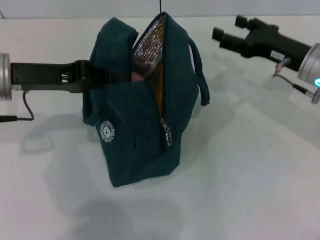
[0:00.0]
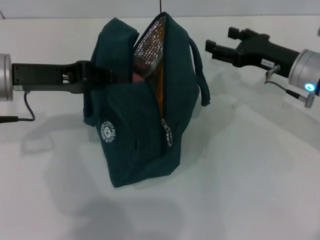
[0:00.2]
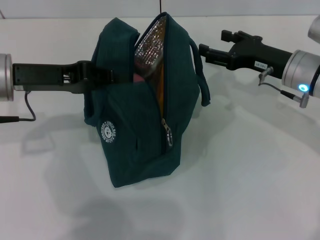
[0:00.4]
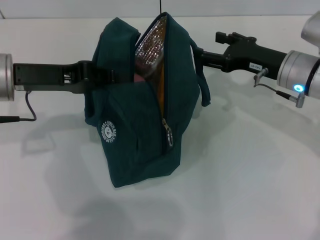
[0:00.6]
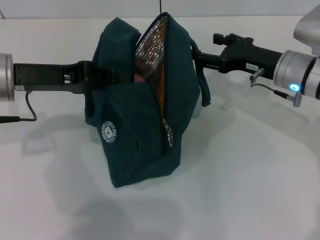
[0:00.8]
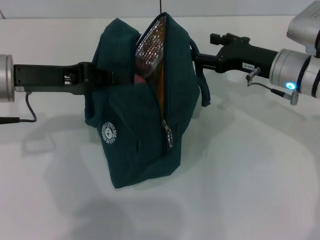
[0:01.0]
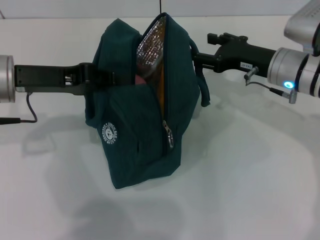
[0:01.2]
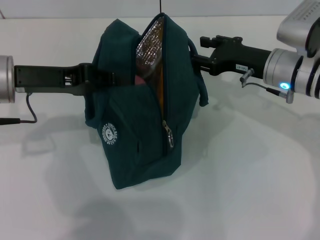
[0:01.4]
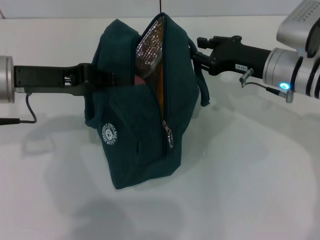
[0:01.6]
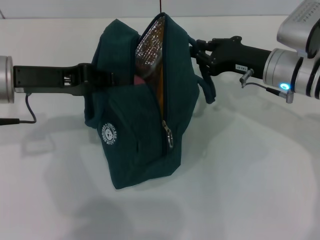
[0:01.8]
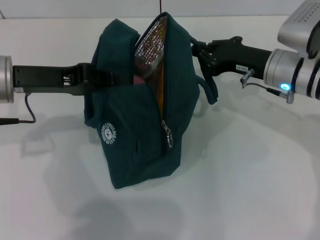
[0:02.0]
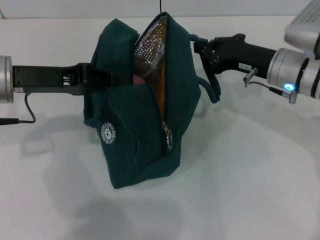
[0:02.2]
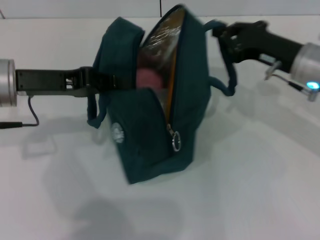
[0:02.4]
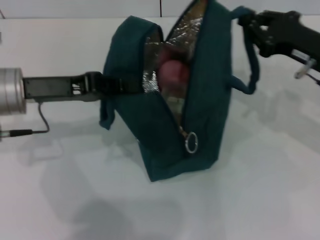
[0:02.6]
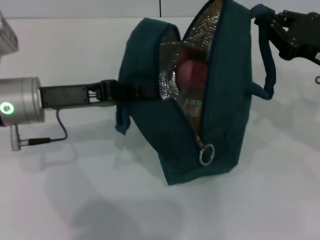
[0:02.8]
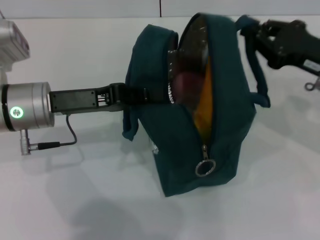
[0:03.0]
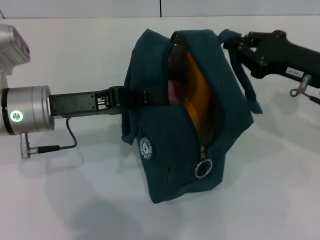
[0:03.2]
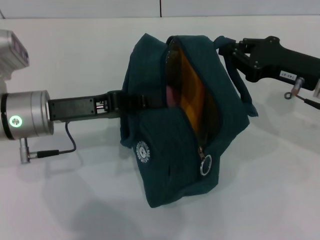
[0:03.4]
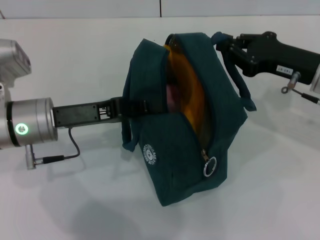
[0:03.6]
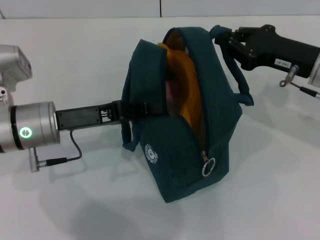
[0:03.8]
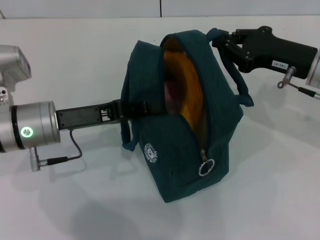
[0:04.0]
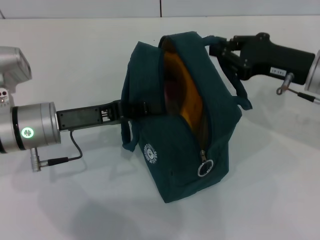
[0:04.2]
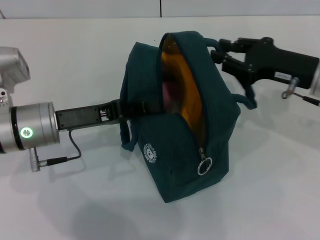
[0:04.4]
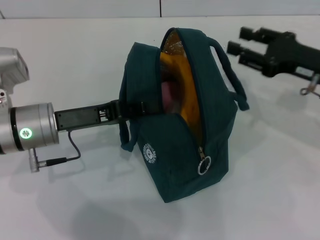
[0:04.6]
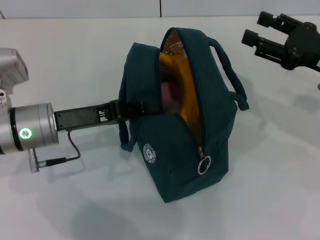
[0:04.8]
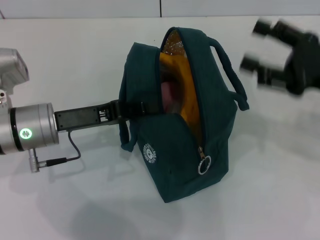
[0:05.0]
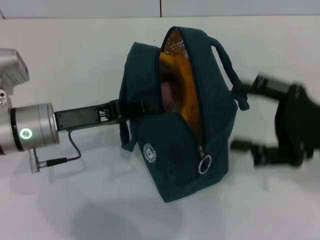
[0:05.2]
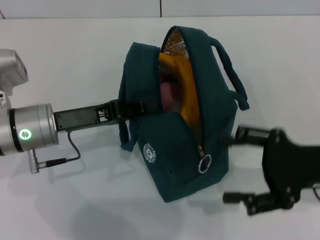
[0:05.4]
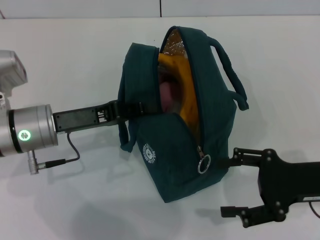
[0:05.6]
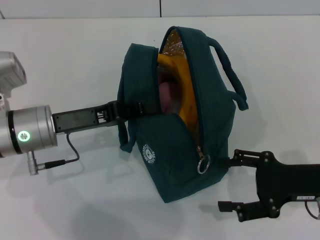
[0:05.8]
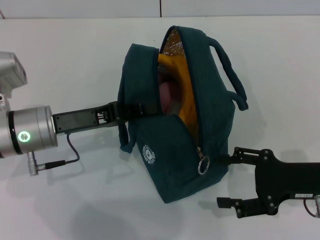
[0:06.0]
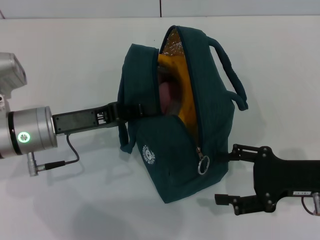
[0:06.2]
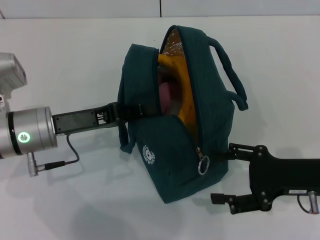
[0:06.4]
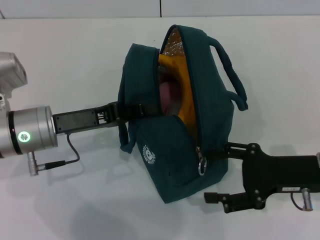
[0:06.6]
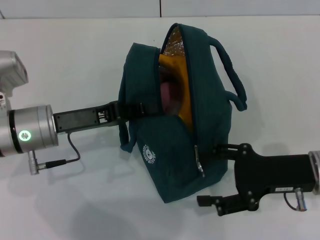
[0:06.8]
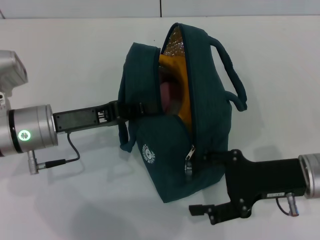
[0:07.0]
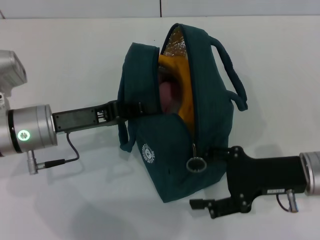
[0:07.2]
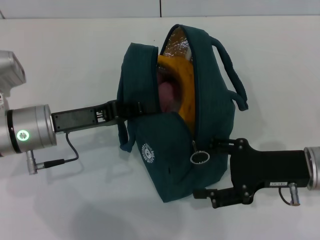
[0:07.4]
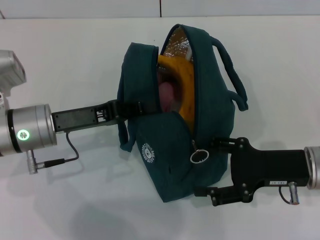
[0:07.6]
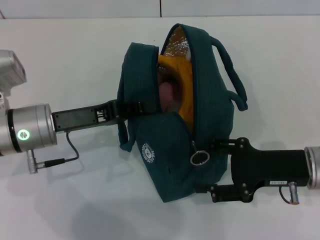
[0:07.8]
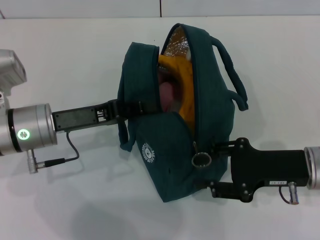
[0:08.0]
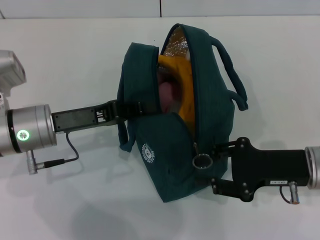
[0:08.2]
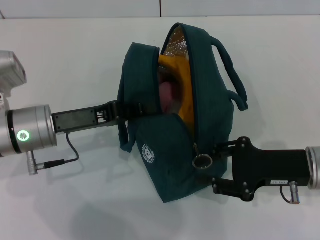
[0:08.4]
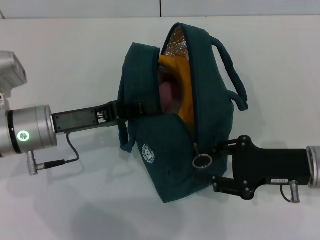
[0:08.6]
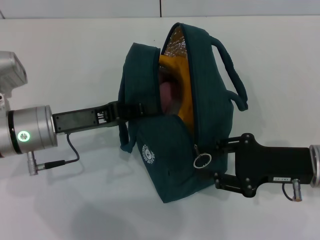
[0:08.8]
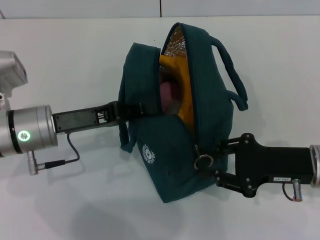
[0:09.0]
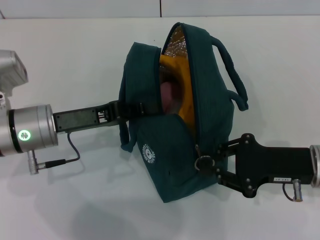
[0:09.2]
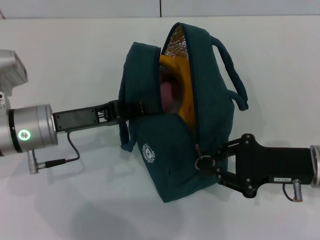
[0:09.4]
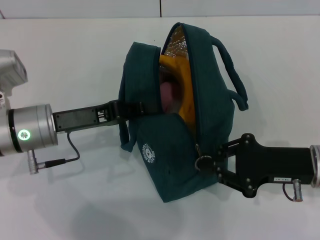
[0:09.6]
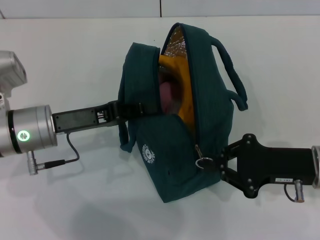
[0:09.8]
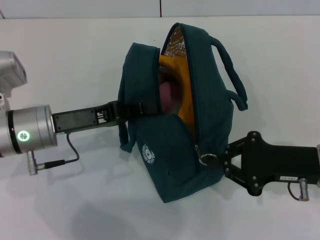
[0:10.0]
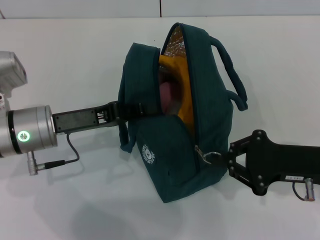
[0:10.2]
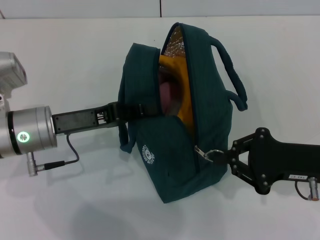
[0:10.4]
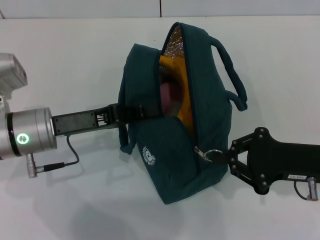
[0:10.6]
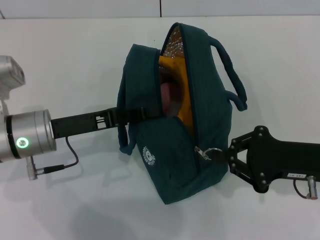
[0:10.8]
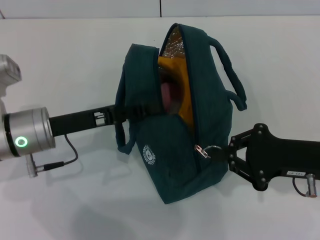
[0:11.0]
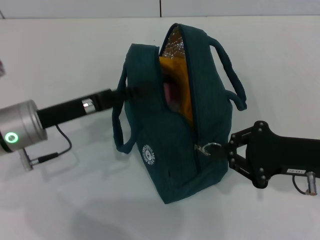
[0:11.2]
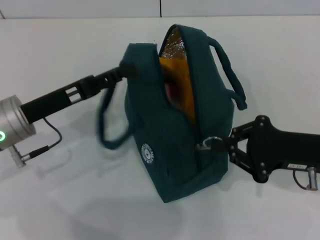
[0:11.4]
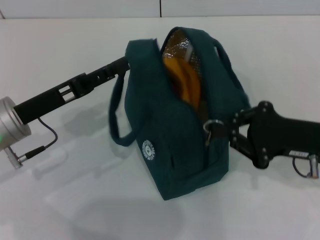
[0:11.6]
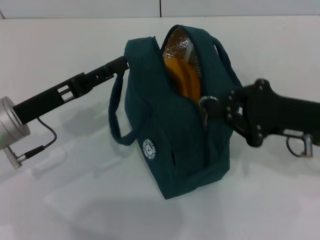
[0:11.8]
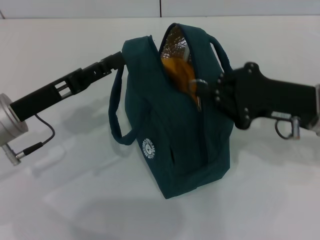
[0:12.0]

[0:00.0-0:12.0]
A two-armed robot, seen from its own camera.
Step, 0:00.0 to 0:04.4: Hold the lunch bag with your right hand.
0:00.0 to 0:01.6: The right gripper closes.
0:01.6 to 0:03.0: The right gripper travels to the right and backward by about 10 cm, and closes up. The left gripper shifts by approximately 5 cm.
0:04.4 to 0:06.0: The right gripper is displaced backward and downward by some 10 cm, and opens its fingers.
0:06.0 to 0:07.6: The grippers move only a little.
0:07.6 to 0:09.0: The right gripper closes up.
0:09.0 to 0:10.4: The right gripper closes its fingers.
0:10.4 to 0:12.0: The right gripper ends up roughly 5 cm from where it was. Meanwhile the left gripper opens up.

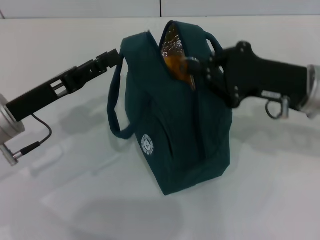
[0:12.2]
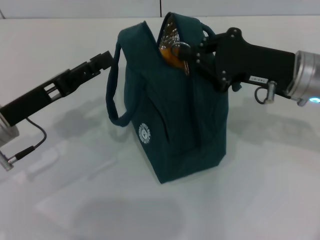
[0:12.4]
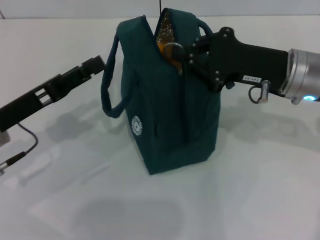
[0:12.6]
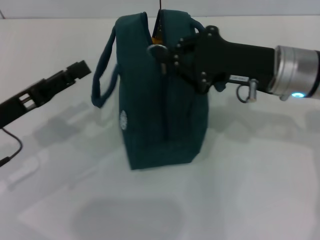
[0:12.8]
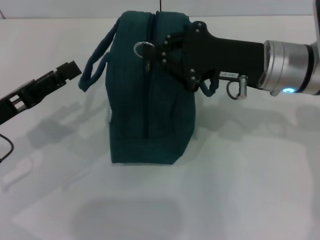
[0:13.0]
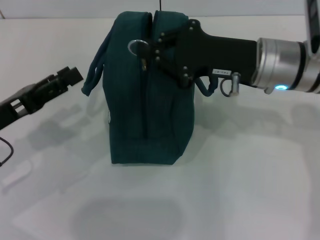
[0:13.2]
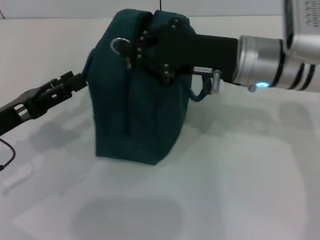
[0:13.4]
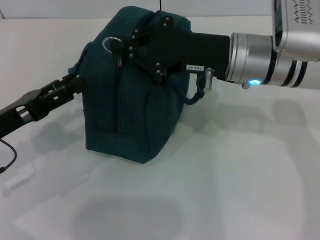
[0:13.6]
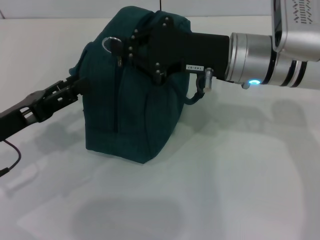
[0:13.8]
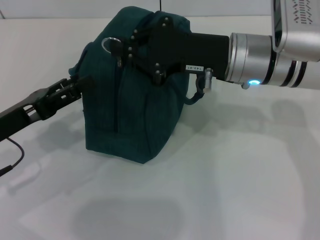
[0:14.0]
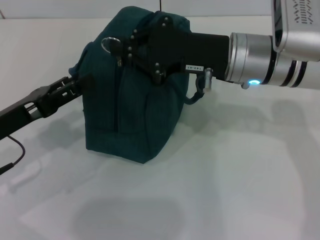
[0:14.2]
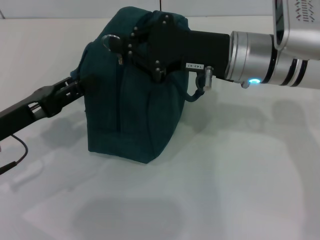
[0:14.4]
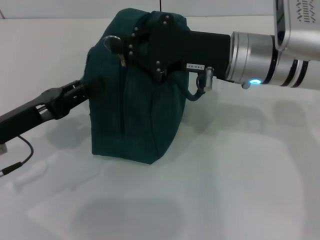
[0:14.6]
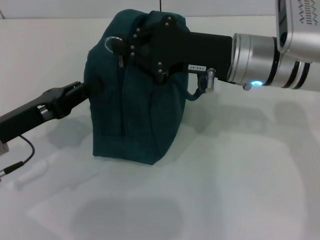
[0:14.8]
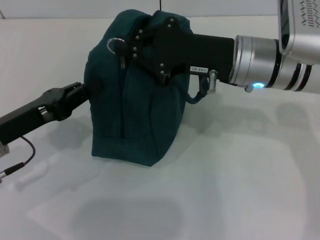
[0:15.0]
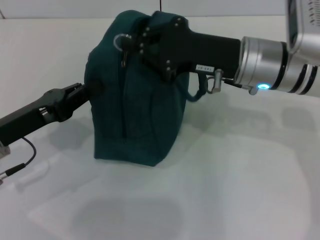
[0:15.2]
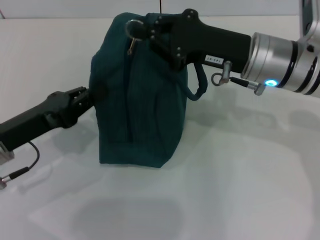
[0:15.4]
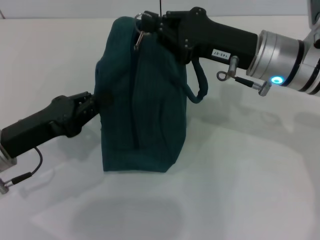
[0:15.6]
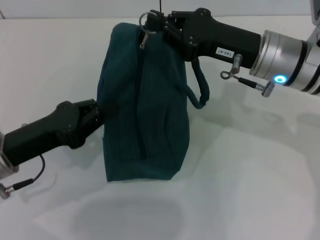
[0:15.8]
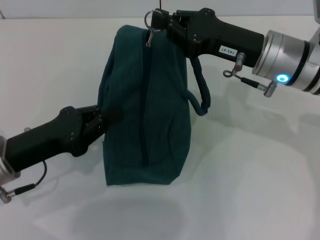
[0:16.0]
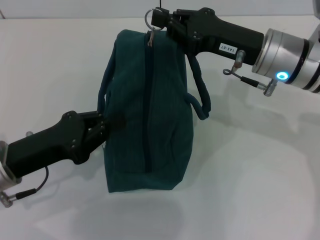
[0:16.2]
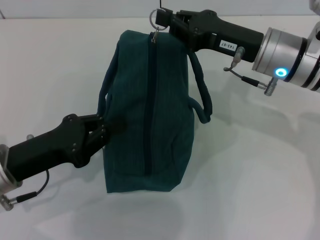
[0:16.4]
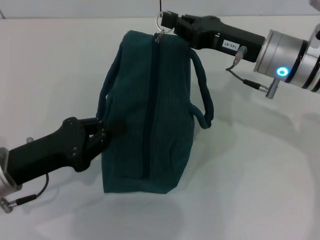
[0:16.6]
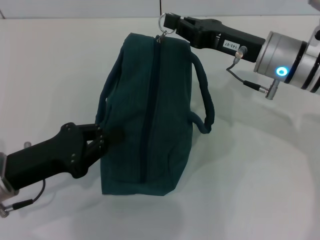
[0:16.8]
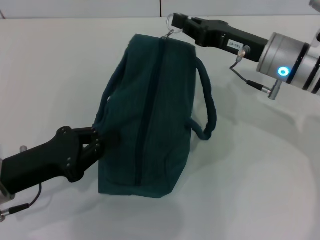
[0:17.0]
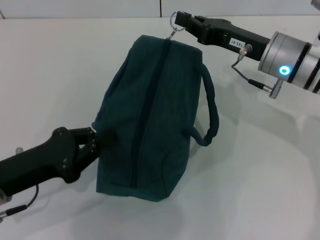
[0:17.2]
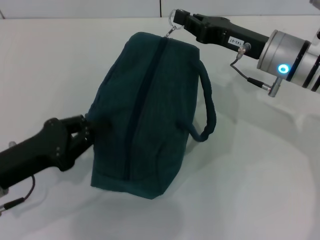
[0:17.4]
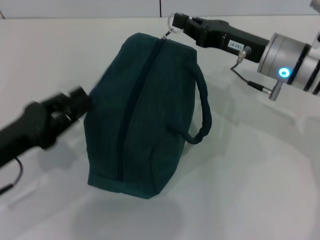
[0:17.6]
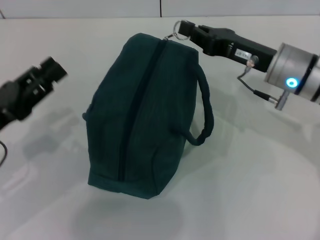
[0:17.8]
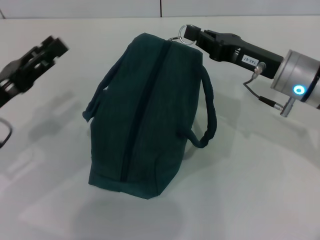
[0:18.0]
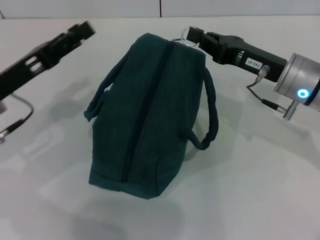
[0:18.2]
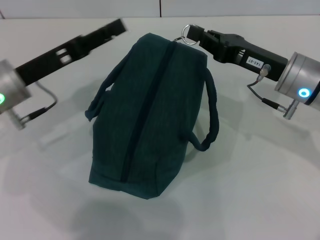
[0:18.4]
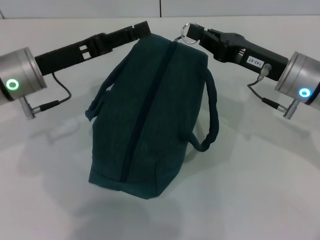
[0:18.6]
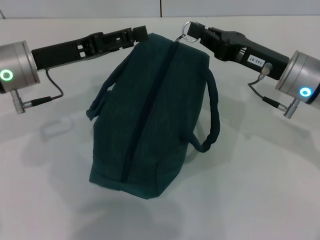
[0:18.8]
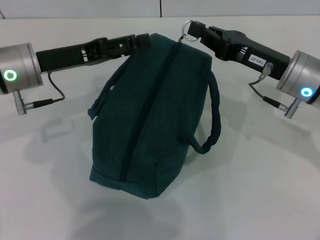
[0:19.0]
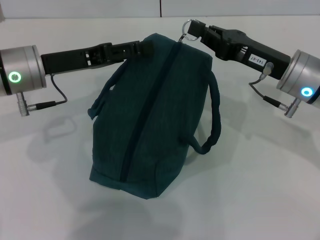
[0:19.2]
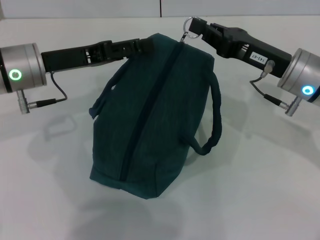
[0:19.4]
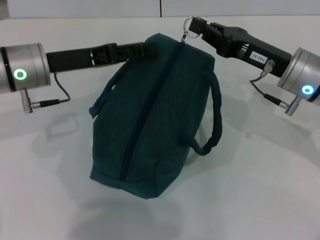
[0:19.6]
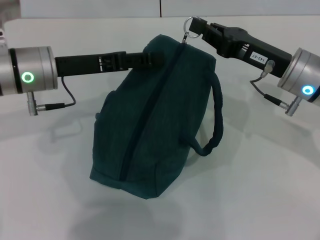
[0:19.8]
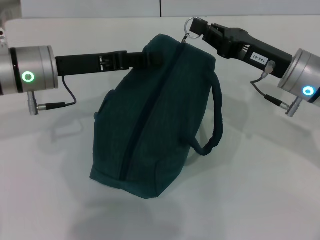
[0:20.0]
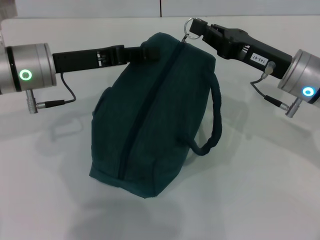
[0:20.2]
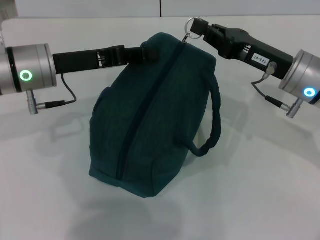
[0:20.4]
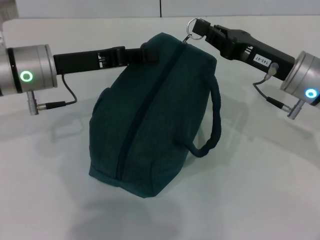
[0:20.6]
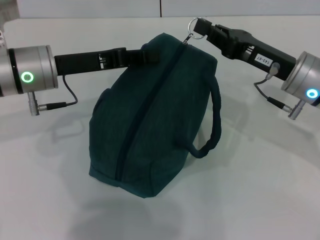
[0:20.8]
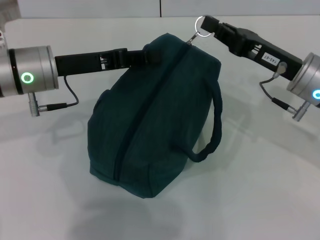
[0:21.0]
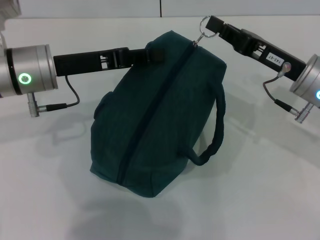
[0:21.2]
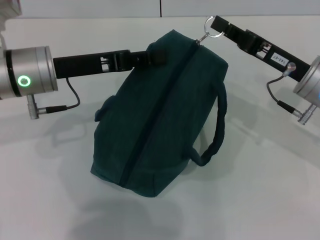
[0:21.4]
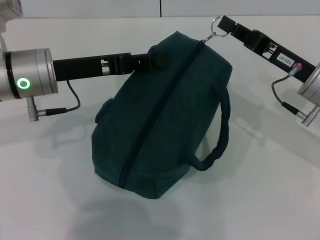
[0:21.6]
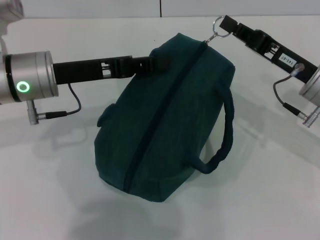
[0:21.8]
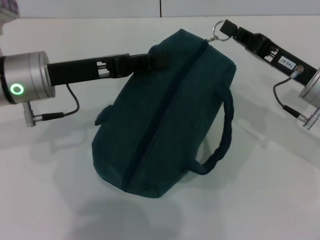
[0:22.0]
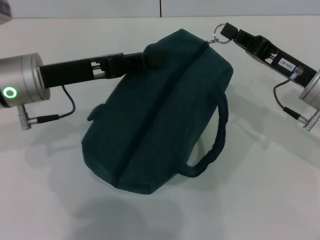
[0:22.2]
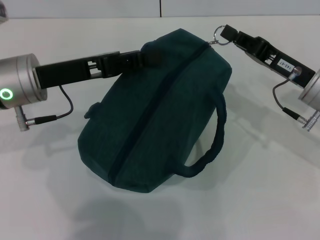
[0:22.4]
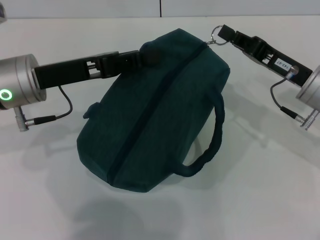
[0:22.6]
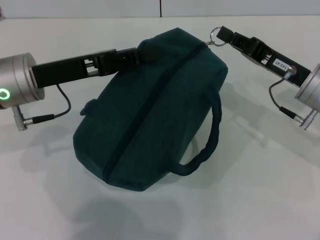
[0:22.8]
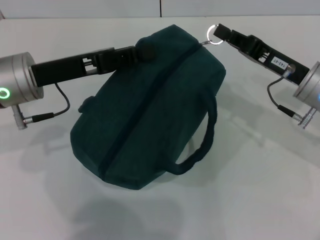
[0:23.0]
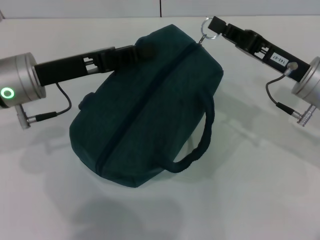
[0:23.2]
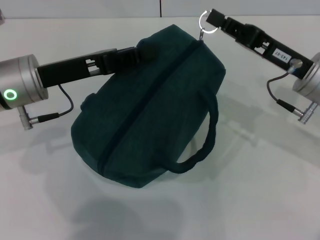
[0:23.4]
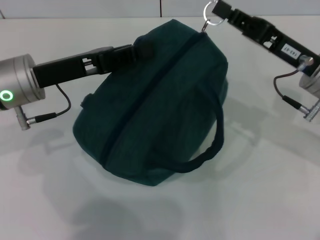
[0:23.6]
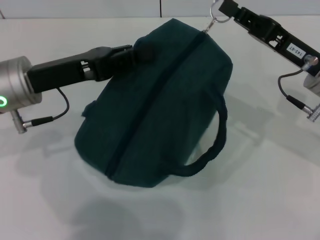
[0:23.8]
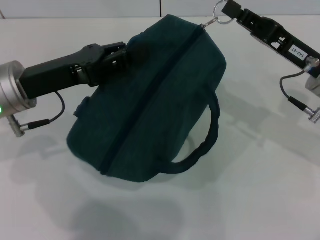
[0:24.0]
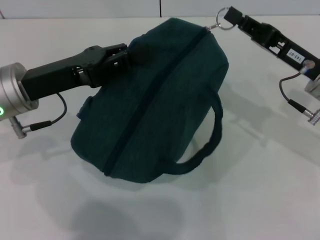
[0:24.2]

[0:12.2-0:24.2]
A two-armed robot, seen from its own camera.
0:12.2 to 0:13.8: The right gripper is displaced to the left by approximately 10 cm. The left gripper moves some 5 cm.
0:13.8 to 0:15.2: The left gripper closes up.
0:16.6 to 0:18.2: The left gripper shifts roughly 5 cm forward, and opens.
0:18.2 to 0:19.8: The left gripper travels to the right and forward by about 10 cm.
0:19.8 to 0:21.2: The left gripper closes its fingers.
0:21.2 to 0:22.6: There are only small adjustments of the grippers.
0:22.6 to 0:24.2: The grippers stay close to where they were, moving slightly.
